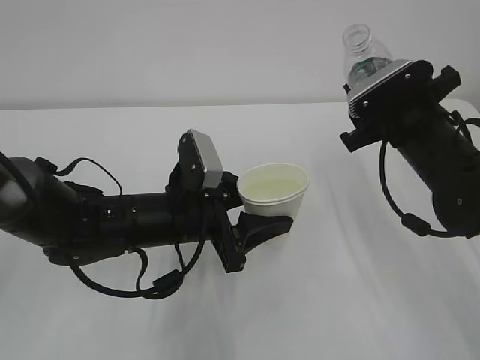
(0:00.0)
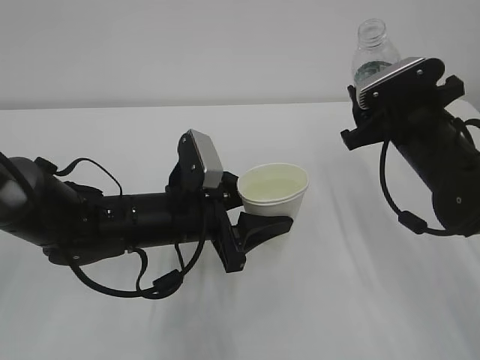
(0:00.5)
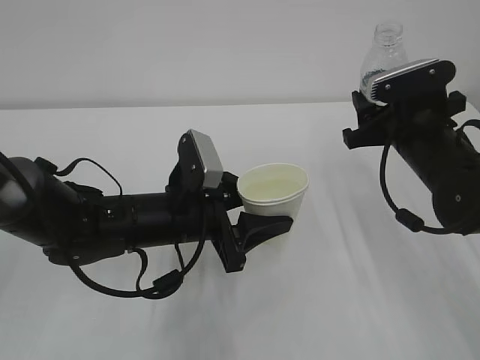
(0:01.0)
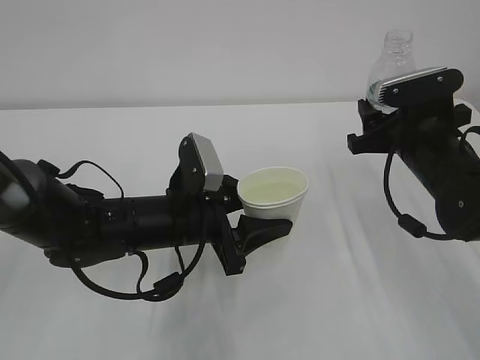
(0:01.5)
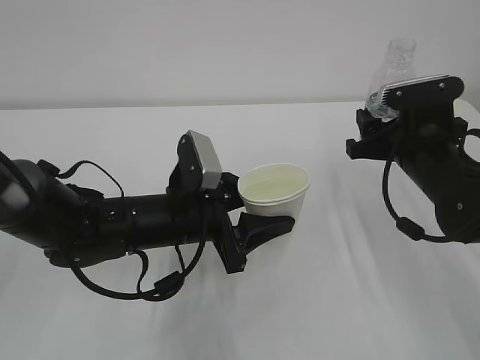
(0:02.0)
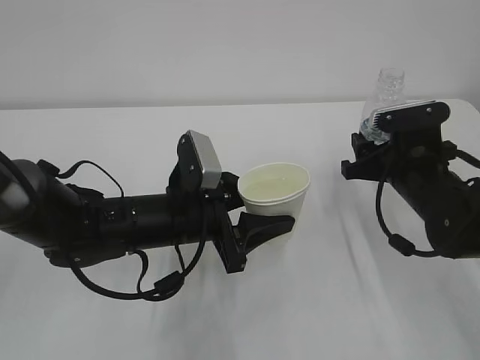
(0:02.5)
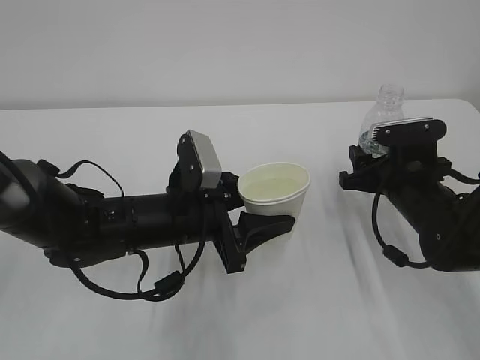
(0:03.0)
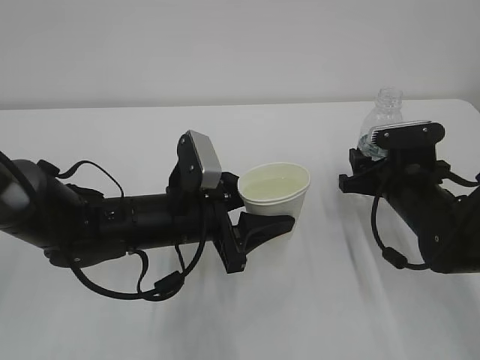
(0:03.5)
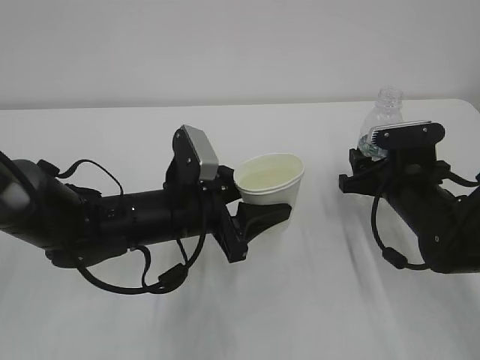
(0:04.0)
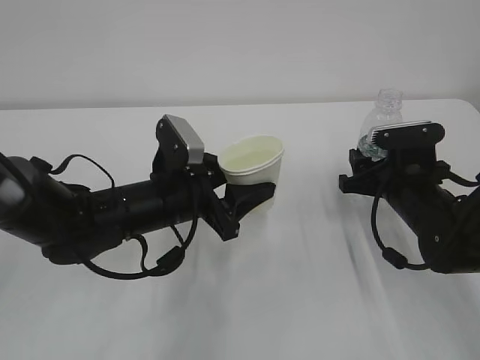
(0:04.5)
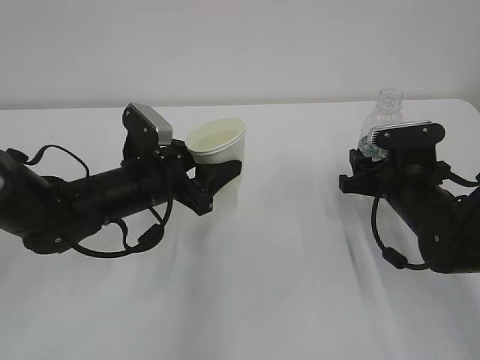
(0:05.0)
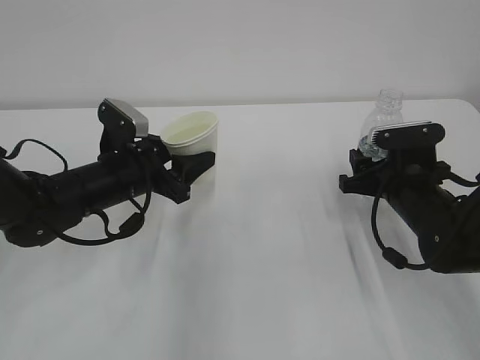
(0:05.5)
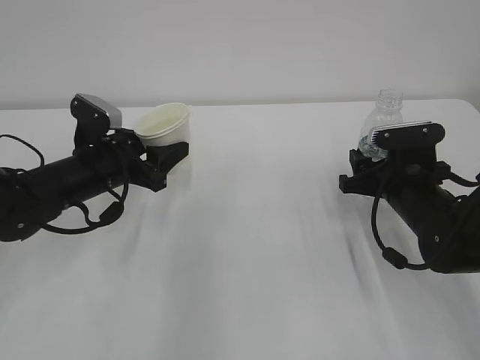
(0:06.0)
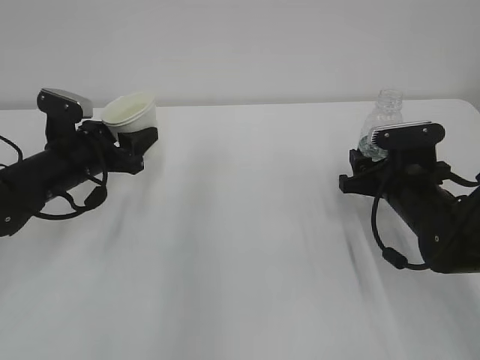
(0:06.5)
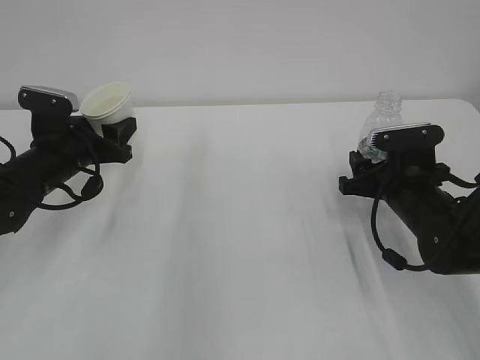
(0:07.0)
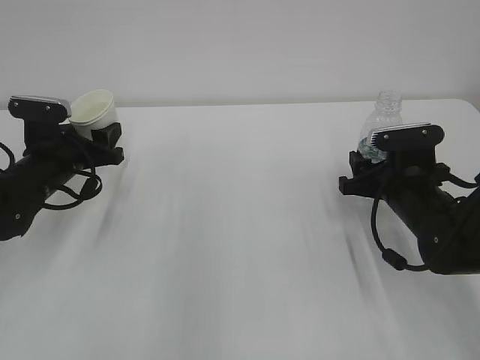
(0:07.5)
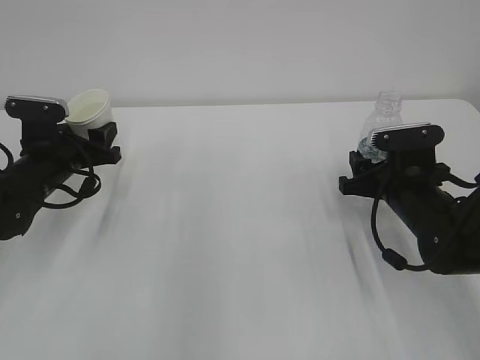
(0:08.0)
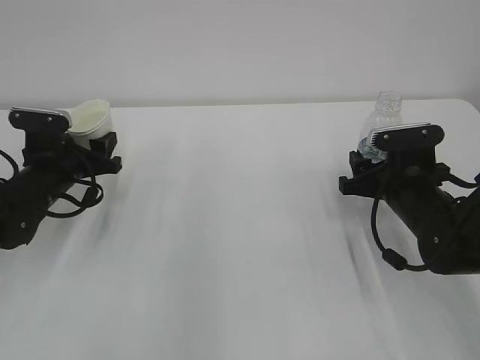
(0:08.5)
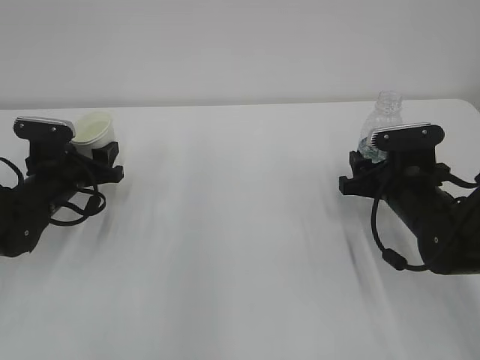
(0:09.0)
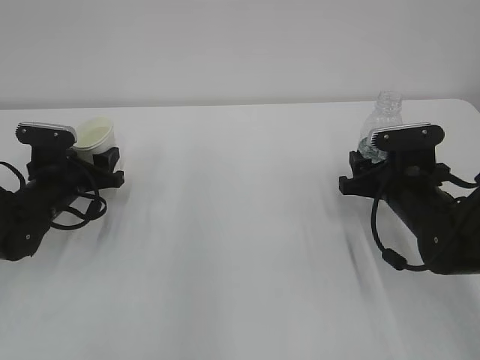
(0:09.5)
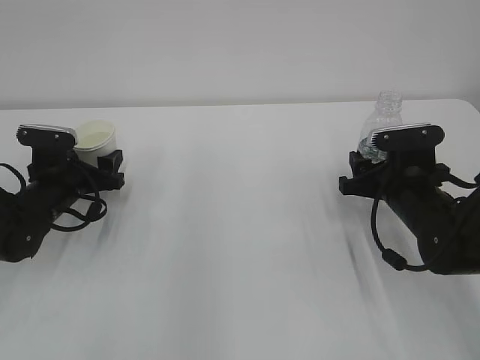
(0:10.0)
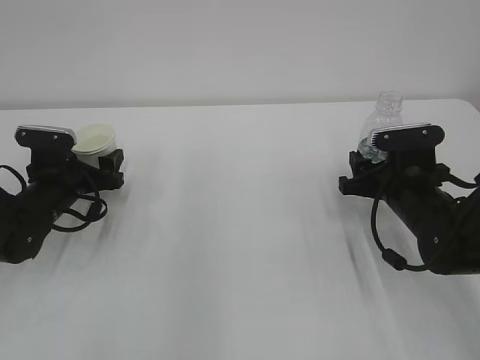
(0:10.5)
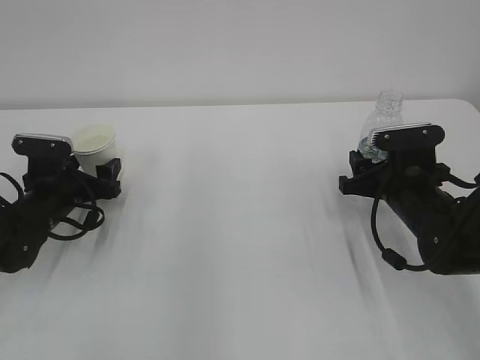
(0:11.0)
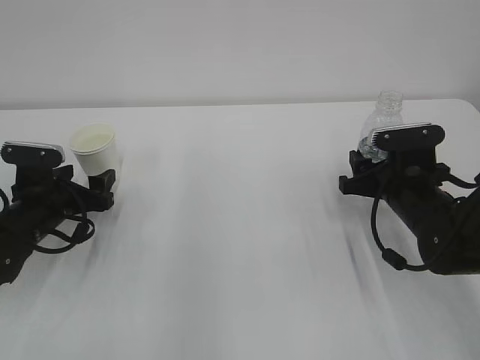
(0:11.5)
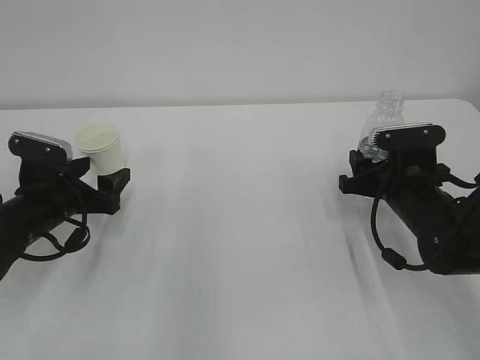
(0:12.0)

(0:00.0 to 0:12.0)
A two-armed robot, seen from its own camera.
0:02.0 - 0:04.0: The right gripper heads downward, covering some 5 cm.
0:04.0 - 0:06.0: The left gripper moves to the left and forward, some 15 cm.
0:06.0 - 0:08.0: The left gripper travels to the left by about 5 cm.
0:08.0 - 0:10.0: The left gripper opens its fingers.
0:10.0 - 0:12.0: The left gripper heads backward, covering about 5 cm, and opens up.

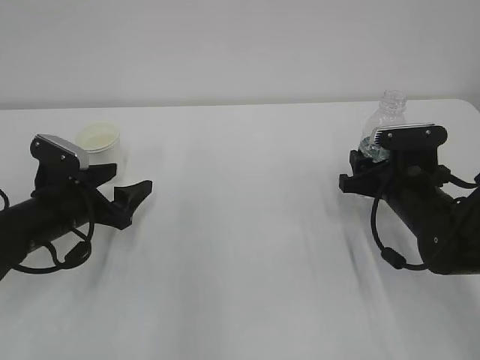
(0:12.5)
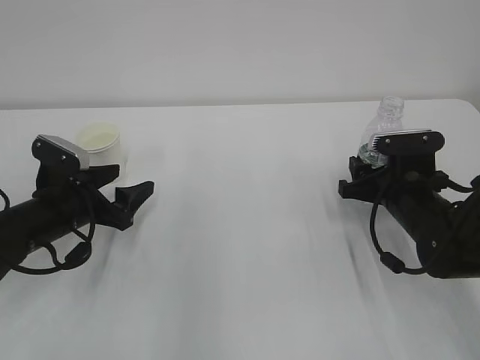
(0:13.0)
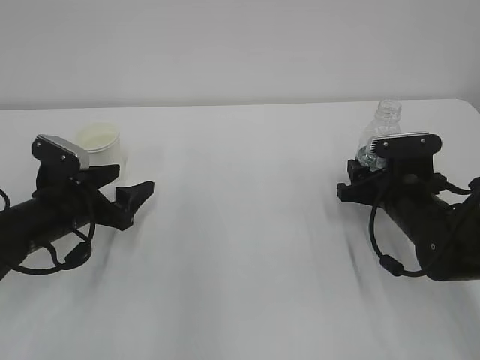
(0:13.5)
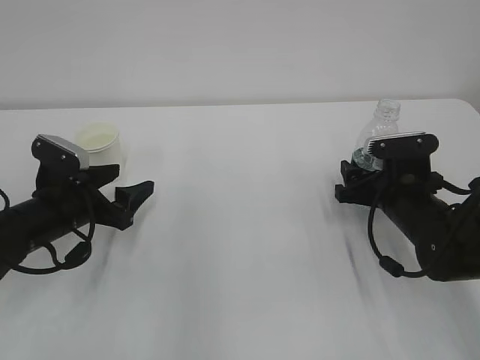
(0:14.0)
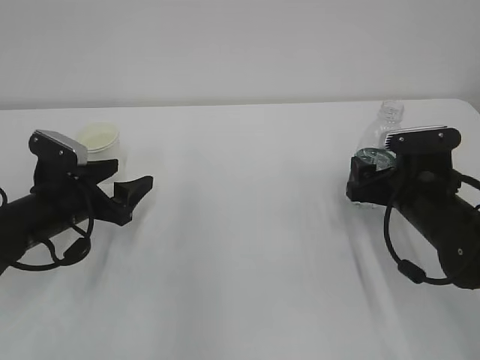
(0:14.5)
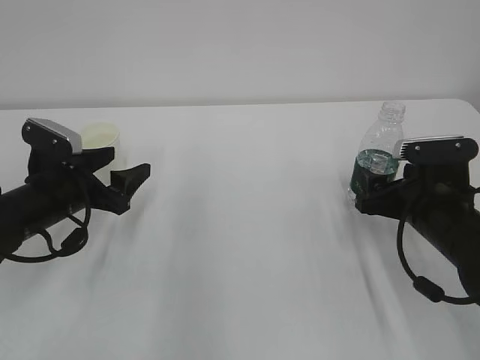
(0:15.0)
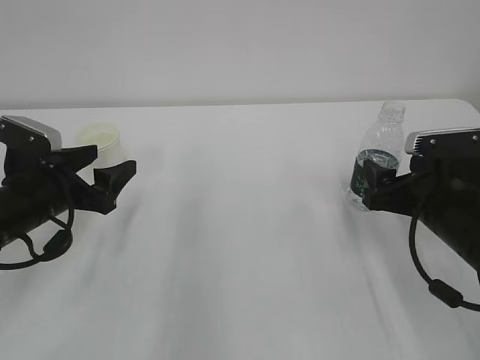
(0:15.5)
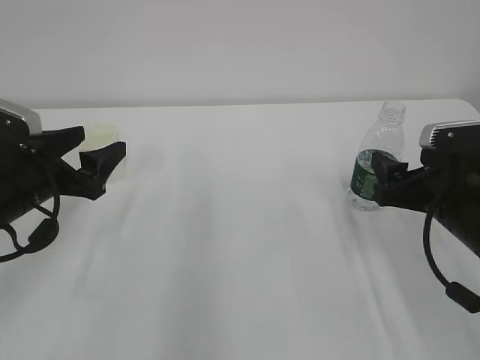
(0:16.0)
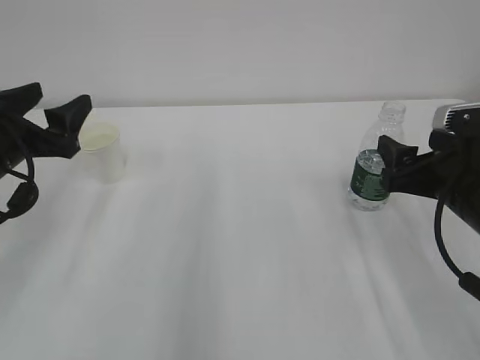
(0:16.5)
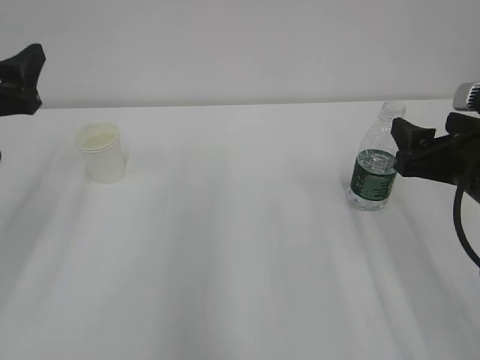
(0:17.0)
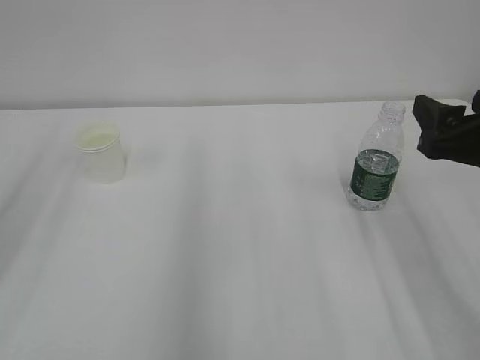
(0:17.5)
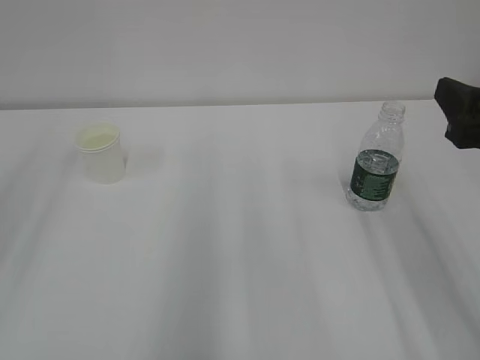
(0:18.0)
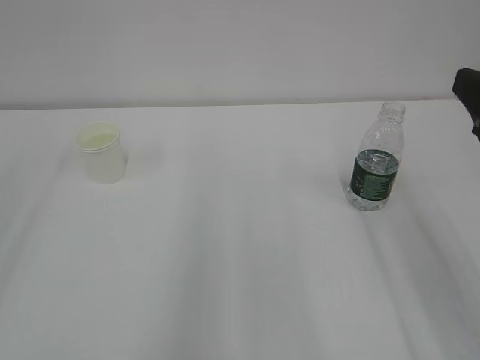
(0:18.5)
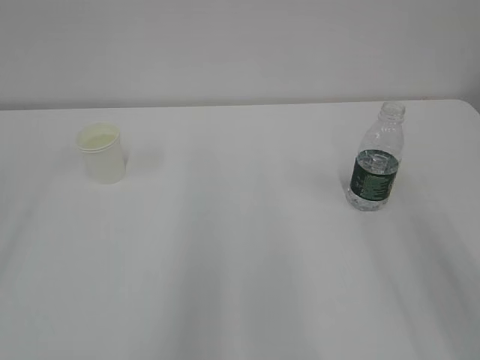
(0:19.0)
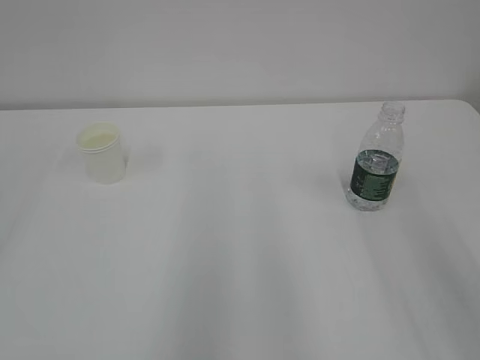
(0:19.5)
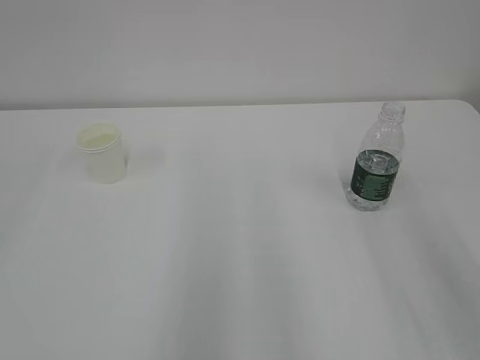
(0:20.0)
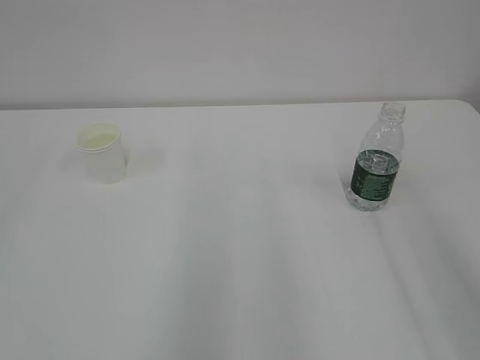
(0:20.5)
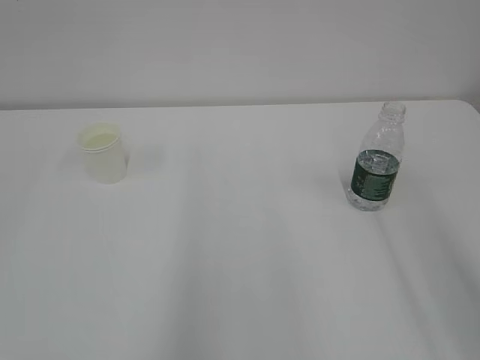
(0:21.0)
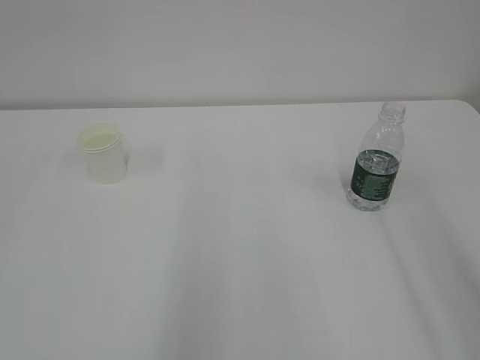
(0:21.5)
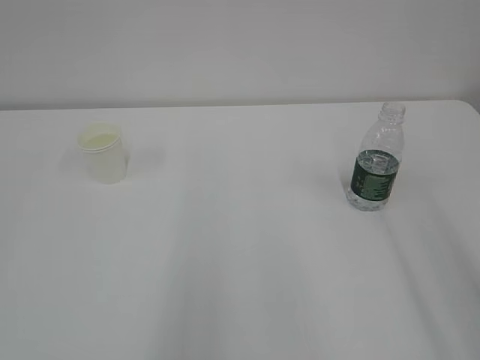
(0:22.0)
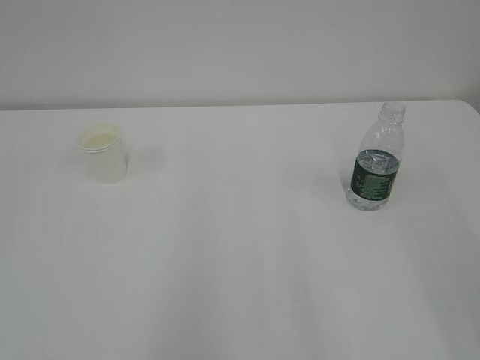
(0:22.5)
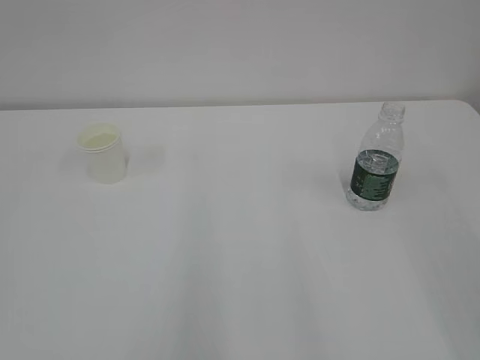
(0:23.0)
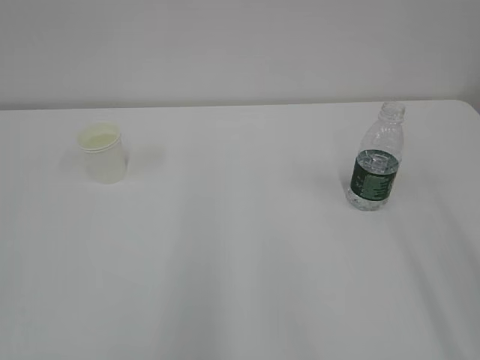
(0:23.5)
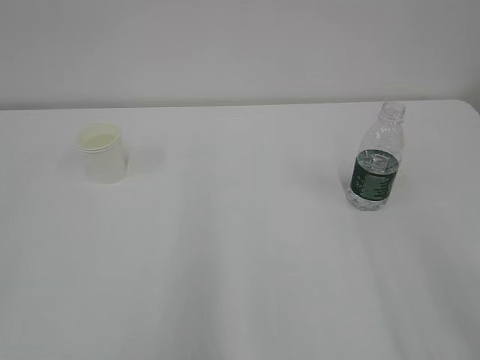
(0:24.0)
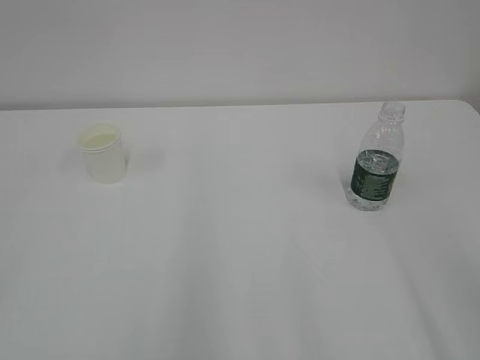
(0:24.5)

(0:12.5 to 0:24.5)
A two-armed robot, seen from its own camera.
0:12.5 - 0:14.5: The right gripper opens.
0:14.5 - 0:16.5: The left gripper travels upward by about 10 cm. Meanwhile the right gripper is displaced upward and backward by some 10 cm.
0:16.5 - 0:18.5: The right gripper travels upward and backward by some 15 cm; the left gripper shifts some 25 cm upward and backward.
0:18.5 - 0:20.5: The right gripper is displaced backward by approximately 5 cm.
